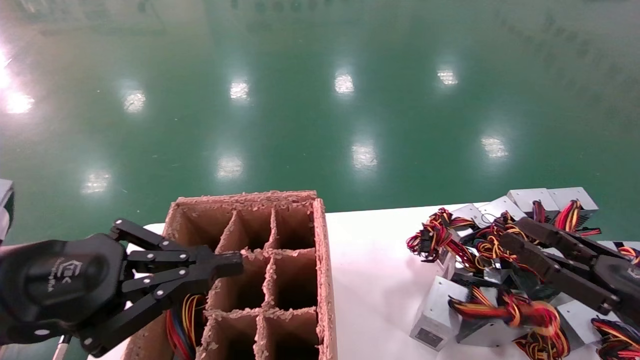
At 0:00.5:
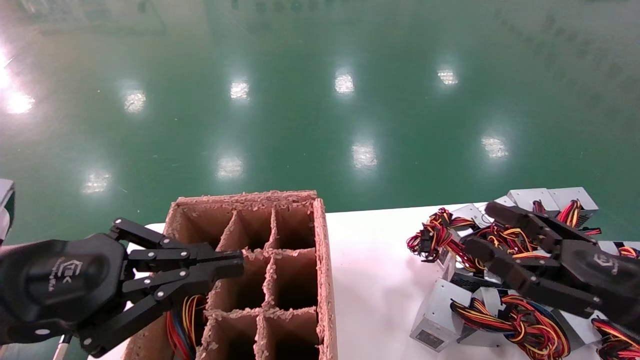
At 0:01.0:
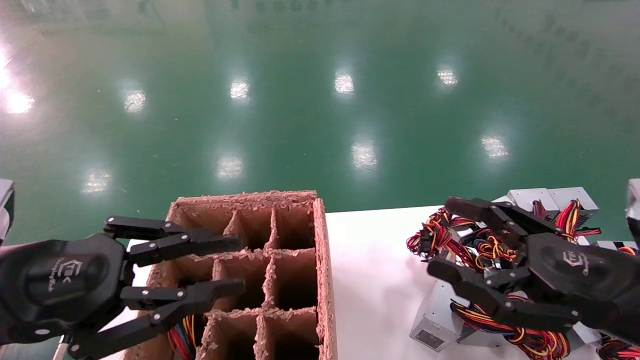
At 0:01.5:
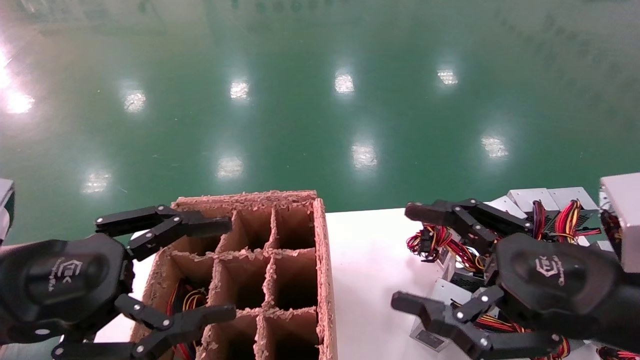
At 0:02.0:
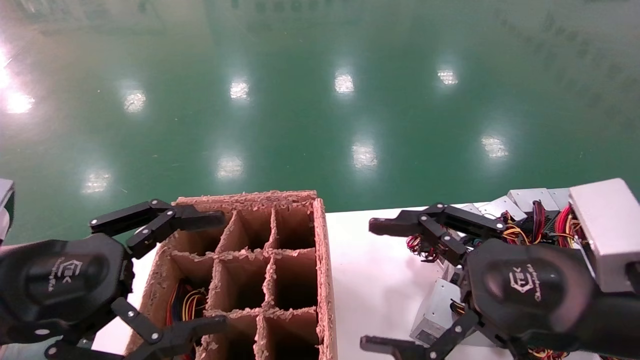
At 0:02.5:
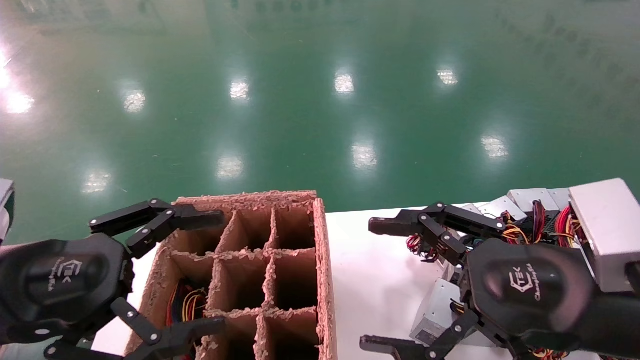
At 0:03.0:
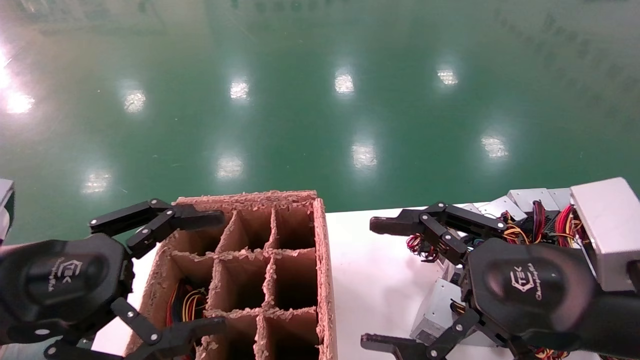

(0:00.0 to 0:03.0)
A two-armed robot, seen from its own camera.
0:00.0 - 0:01.5: The left gripper opens up. The right gripper shifts roughly 15 cm to the left and upward, and opens up.
0:01.5 - 0:03.0: The left gripper opens.
